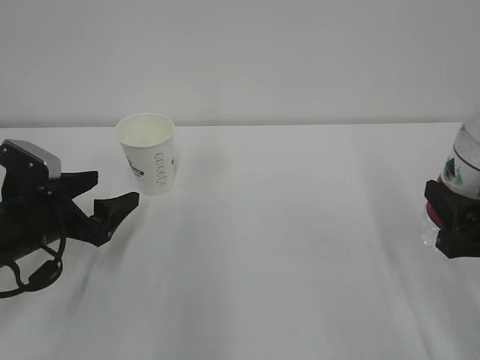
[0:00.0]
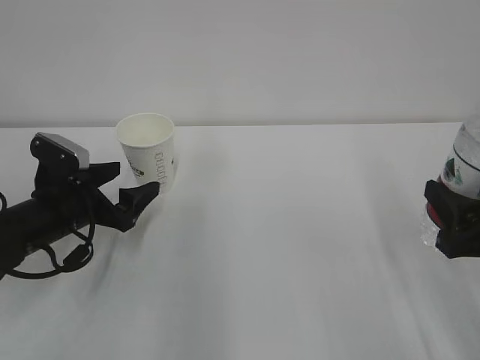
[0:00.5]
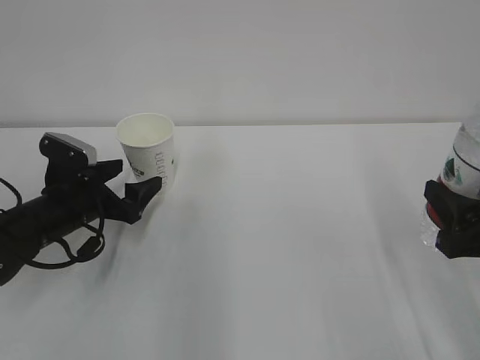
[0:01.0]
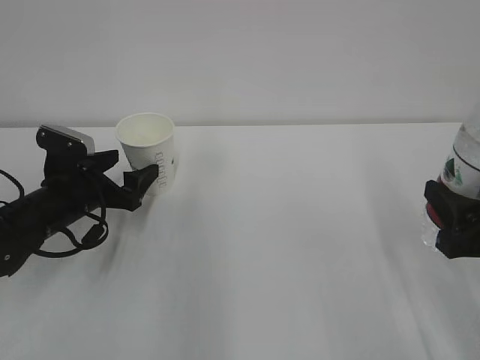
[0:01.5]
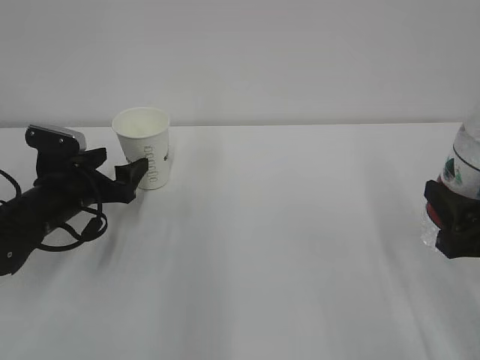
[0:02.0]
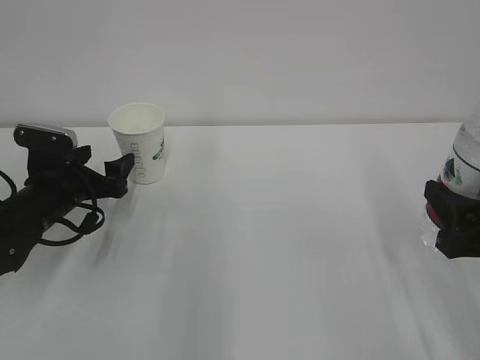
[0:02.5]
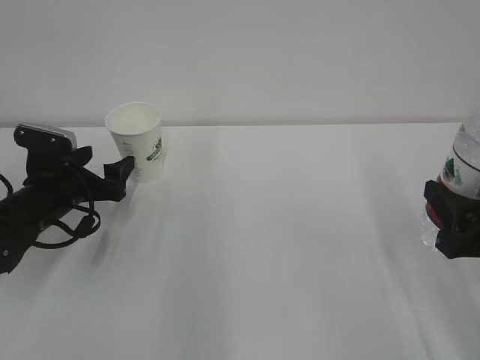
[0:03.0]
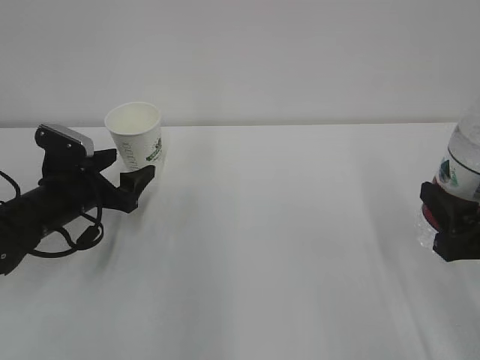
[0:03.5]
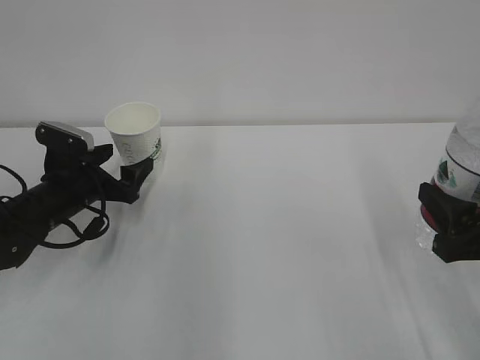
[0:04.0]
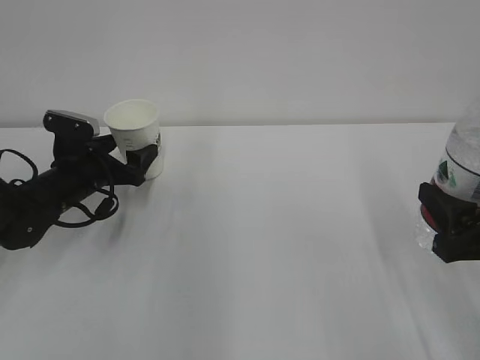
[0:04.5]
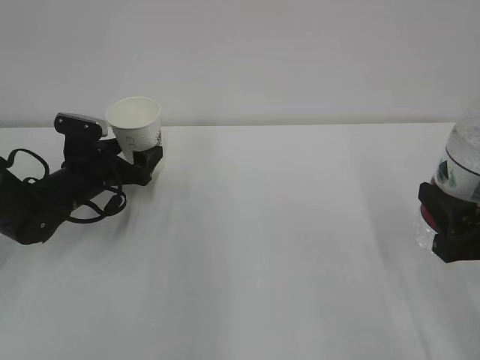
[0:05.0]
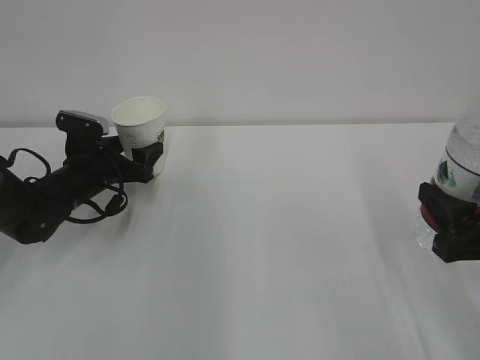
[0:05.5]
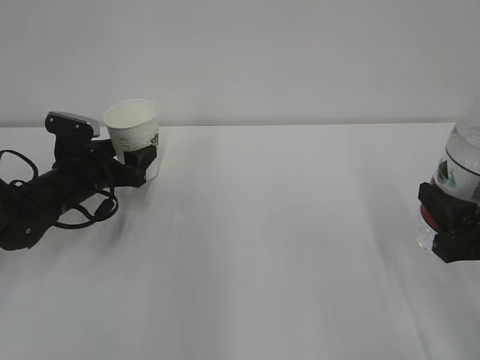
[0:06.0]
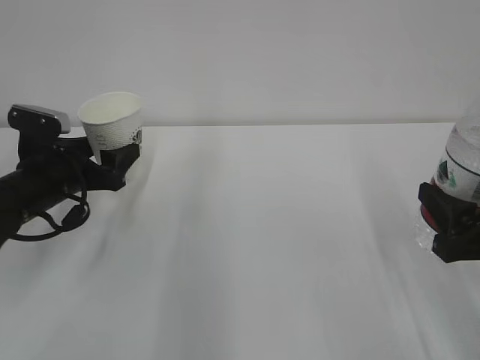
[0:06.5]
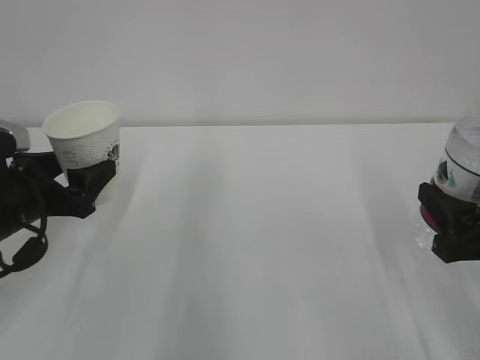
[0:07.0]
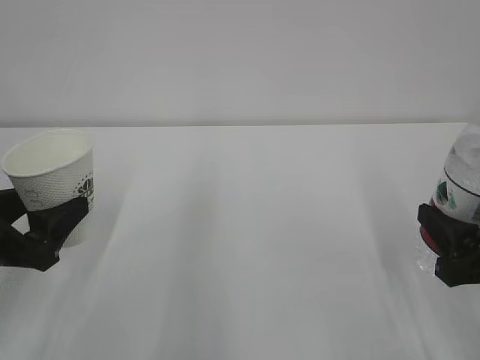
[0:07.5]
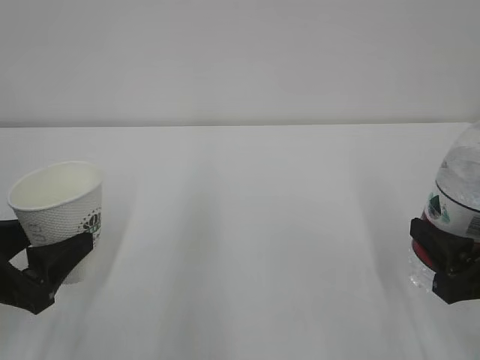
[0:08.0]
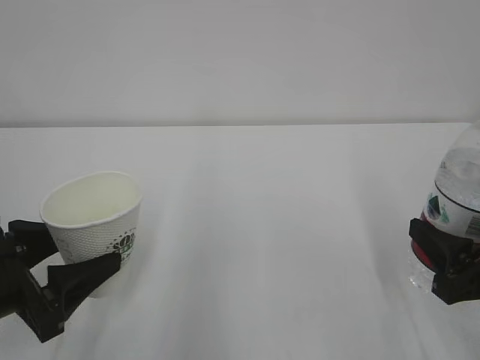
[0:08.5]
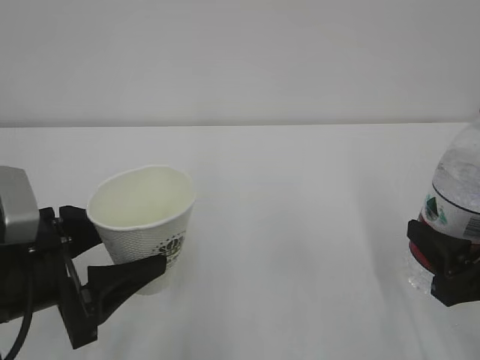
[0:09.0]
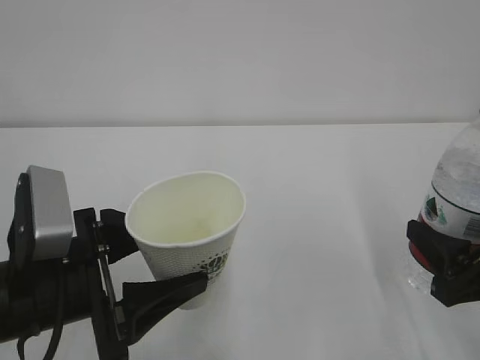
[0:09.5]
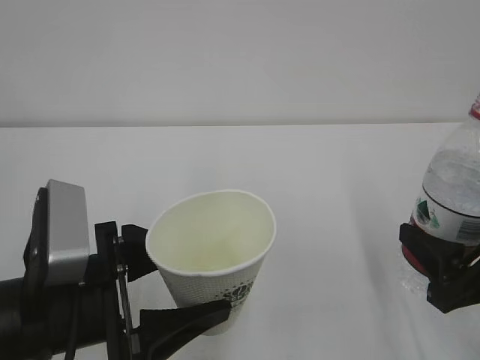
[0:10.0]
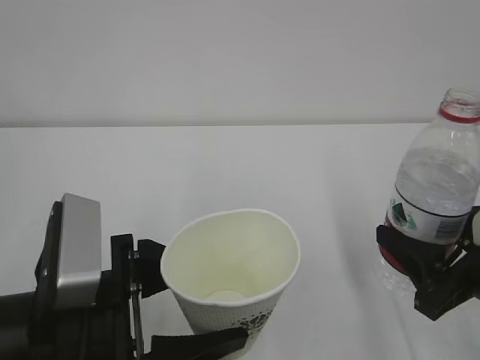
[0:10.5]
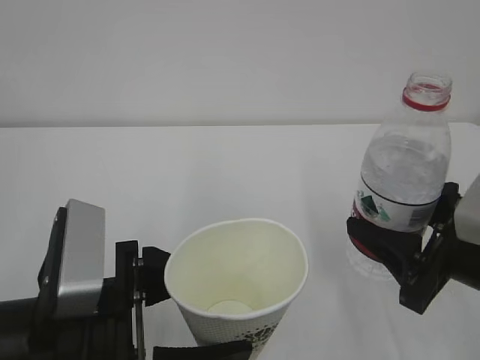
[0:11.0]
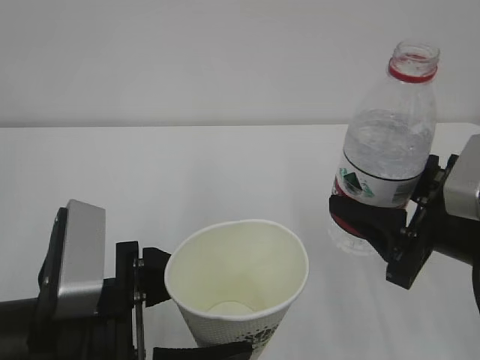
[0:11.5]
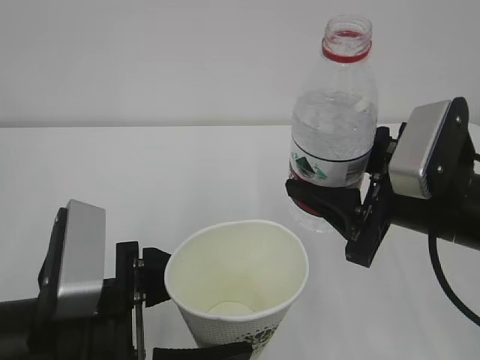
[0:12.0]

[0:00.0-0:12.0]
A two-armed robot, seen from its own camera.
0:00.0 to 0:02.0: The left gripper shifts about 5 cm forward.
0:02.0 to 0:04.0: The grippers make only small movements.
0:04.0 to 0:06.0: The left gripper closes.
0:06.0 to 0:08.0: The left gripper moves backward, approximately 20 cm.
0:08.0 to 0:10.0: The left gripper moves to the right, approximately 10 cm.
0:10.0 to 0:12.0: The right gripper moves to the left, upward and forward, about 10 cm.

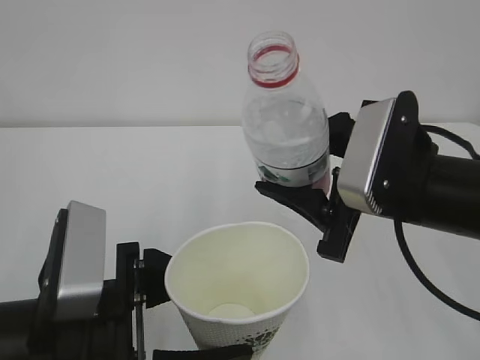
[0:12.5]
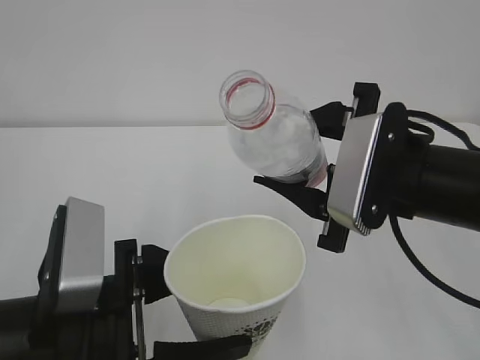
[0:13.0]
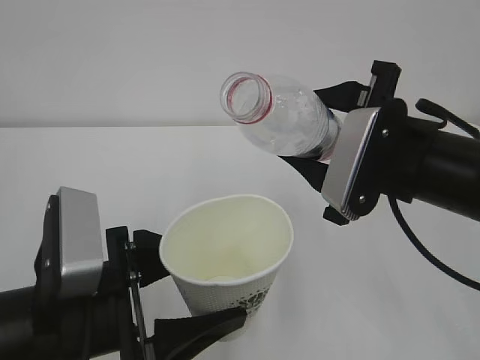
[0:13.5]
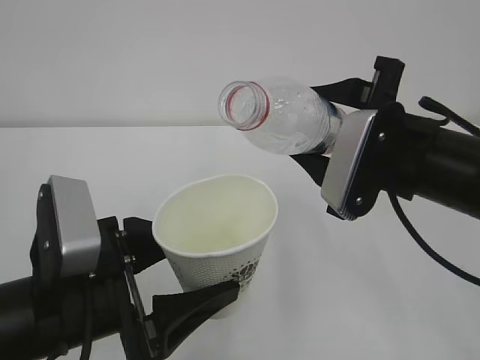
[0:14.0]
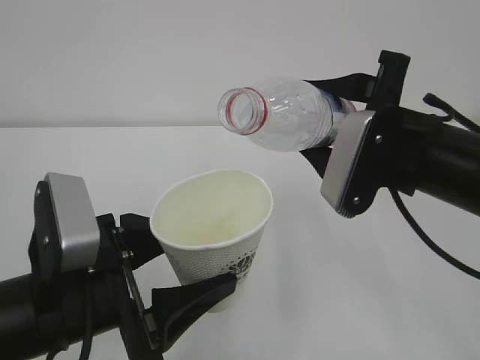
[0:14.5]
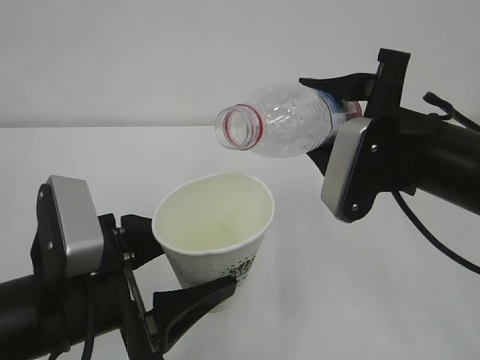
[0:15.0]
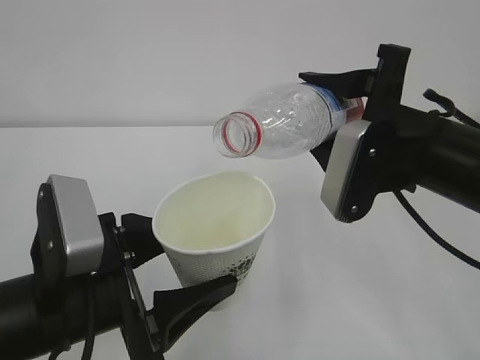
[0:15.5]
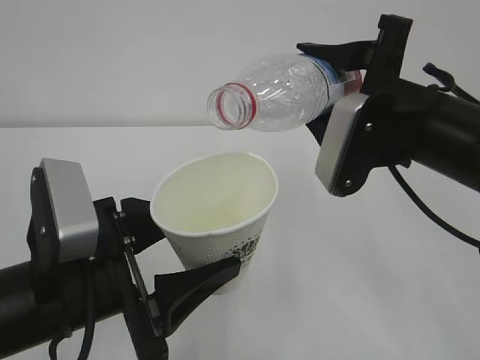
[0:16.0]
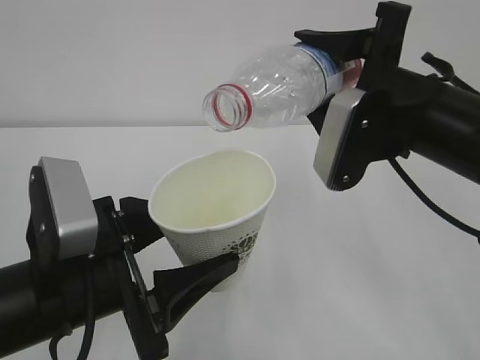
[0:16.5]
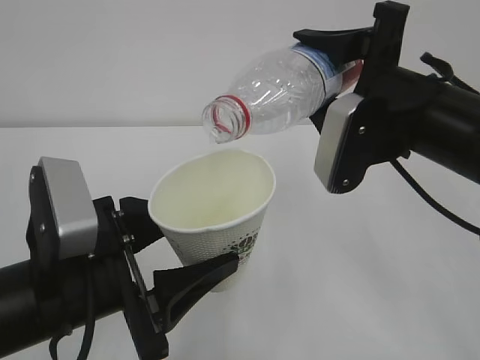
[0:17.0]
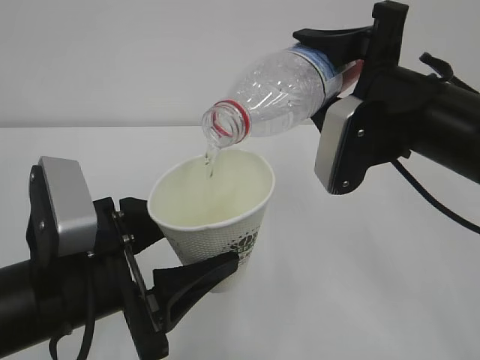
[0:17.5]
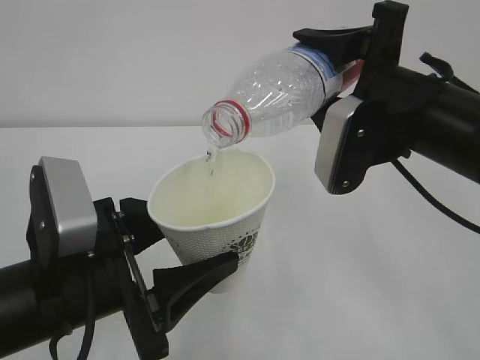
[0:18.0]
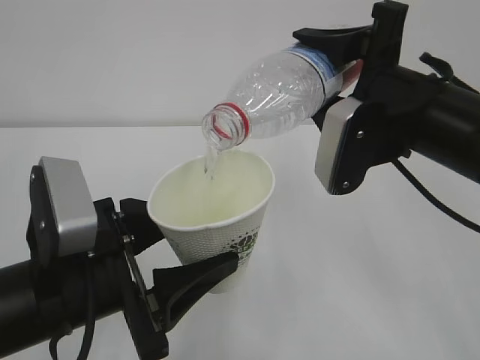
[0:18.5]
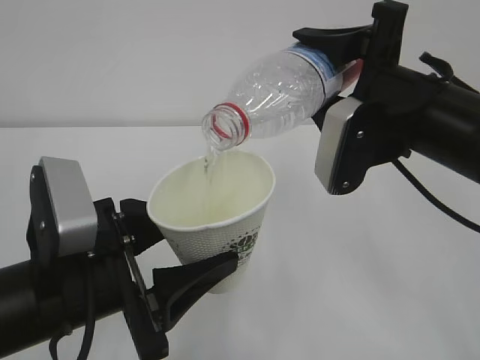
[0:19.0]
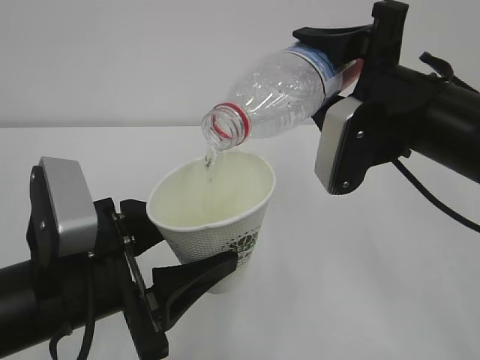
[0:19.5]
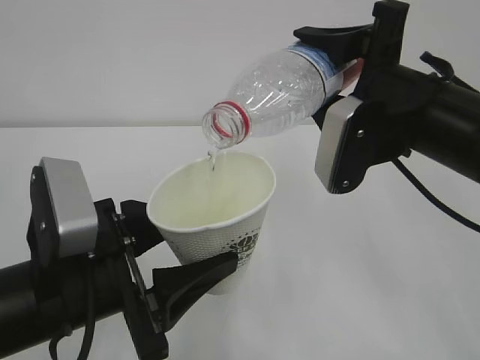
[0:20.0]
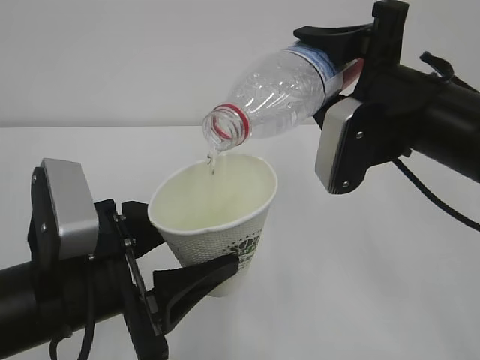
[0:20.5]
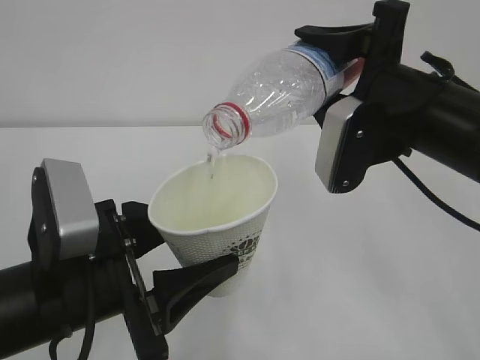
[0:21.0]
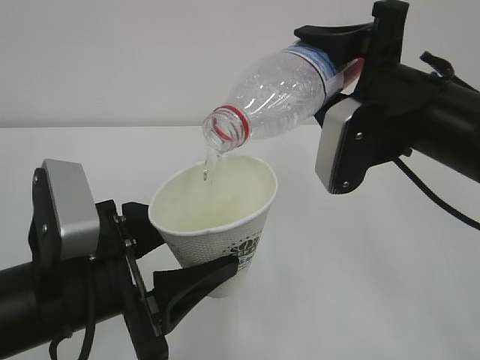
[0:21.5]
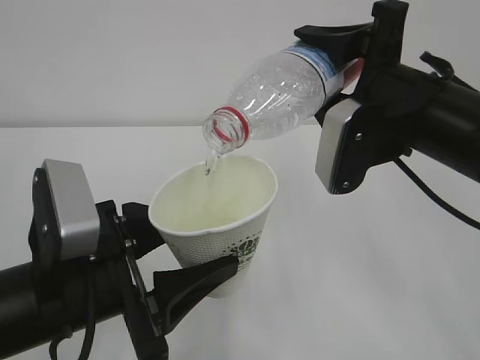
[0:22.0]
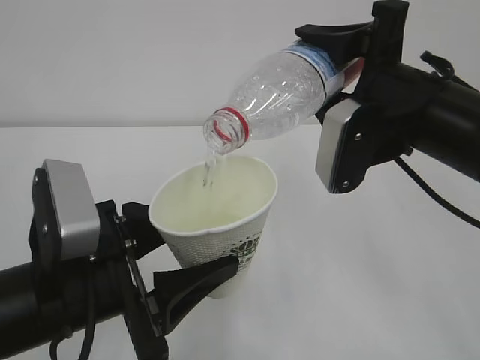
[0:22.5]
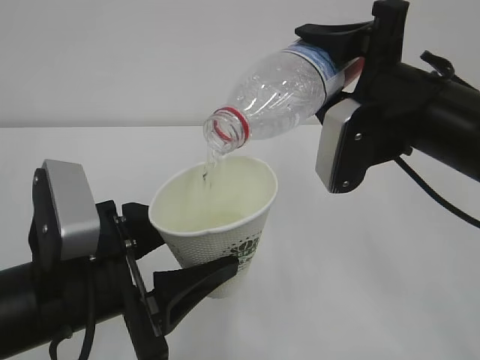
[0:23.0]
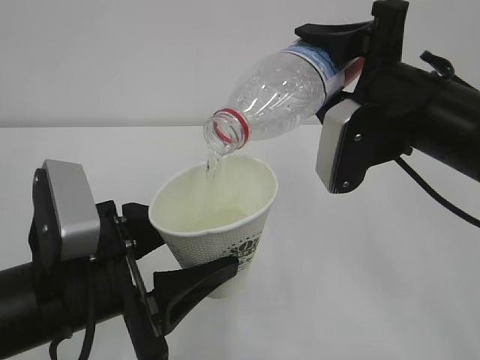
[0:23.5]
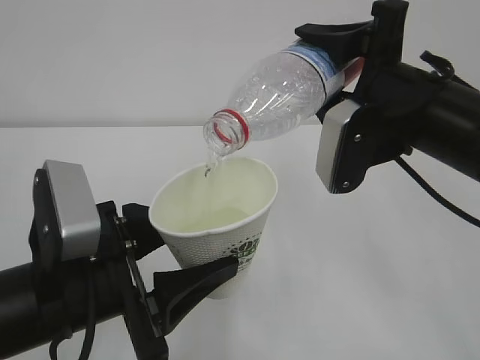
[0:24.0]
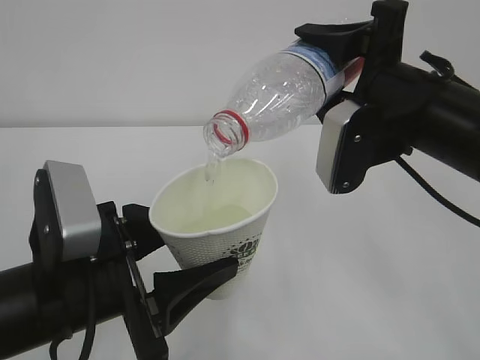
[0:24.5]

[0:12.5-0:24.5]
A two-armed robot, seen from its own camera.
0:16.5 to 0:18.5: The grippers move only a little.
0:18.5 to 0:24.5: The two grippers keep their place.

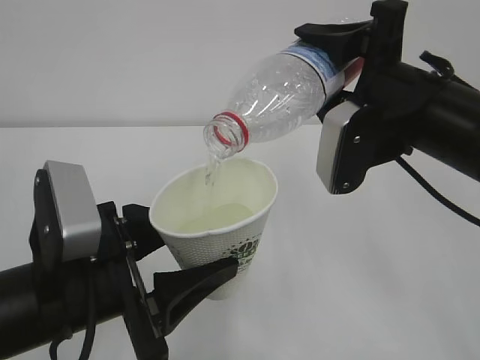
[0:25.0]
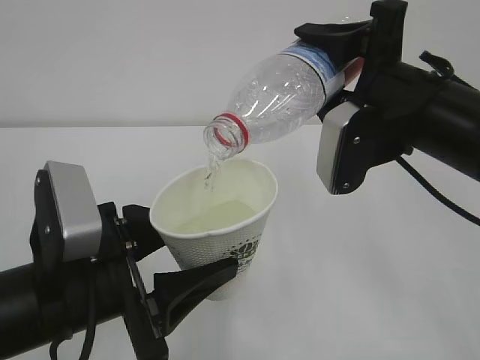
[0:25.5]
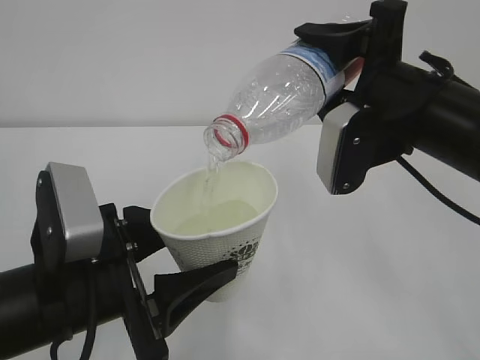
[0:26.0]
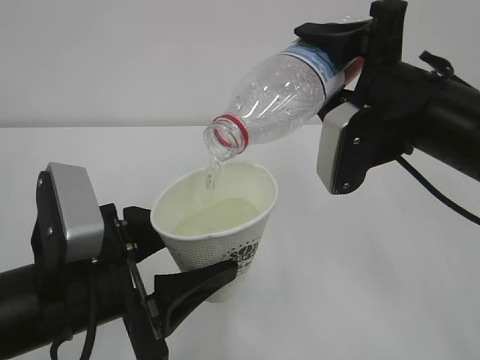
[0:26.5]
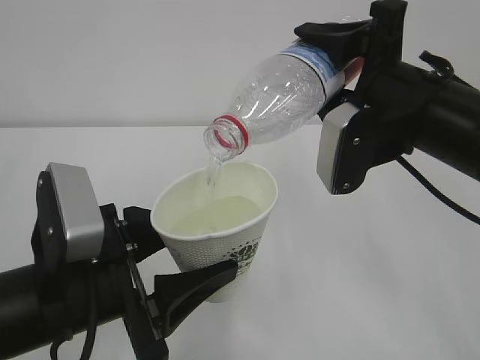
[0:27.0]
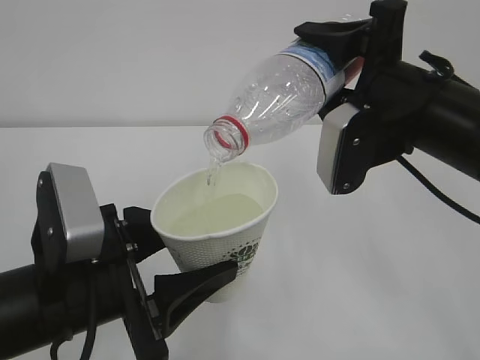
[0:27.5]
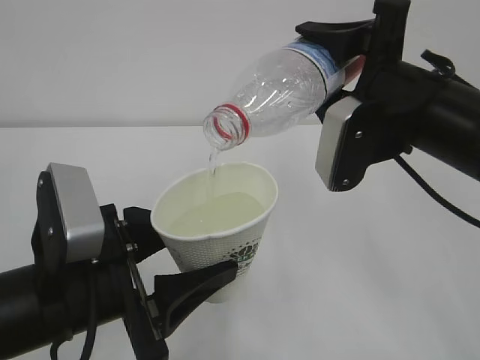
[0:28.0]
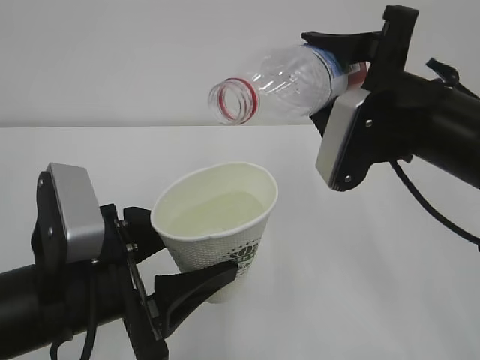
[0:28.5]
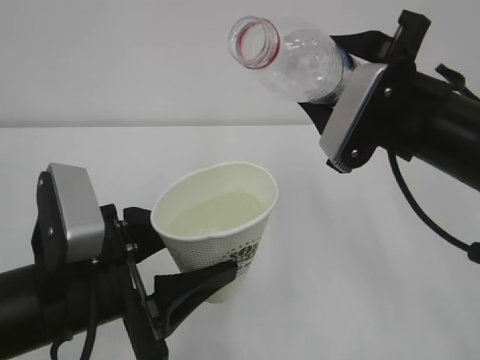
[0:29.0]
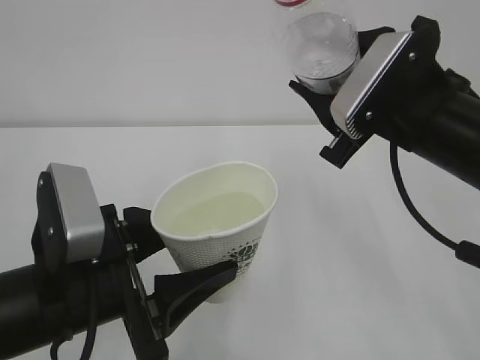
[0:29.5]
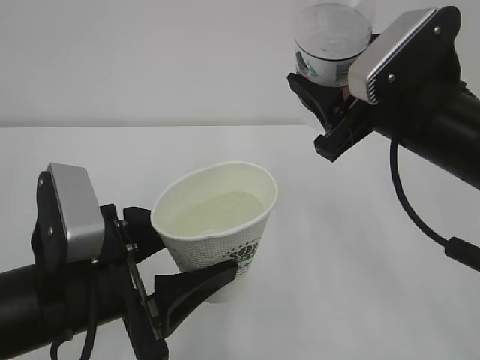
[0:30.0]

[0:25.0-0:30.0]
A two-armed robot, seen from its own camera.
0:25.0 to 0:27.5: Both grippers stay put.
